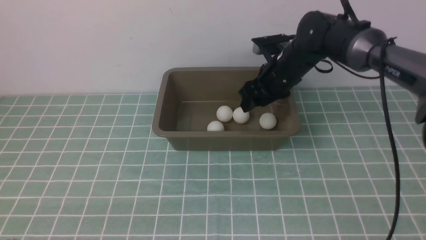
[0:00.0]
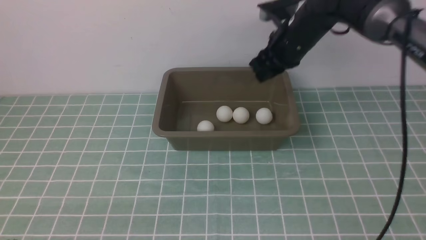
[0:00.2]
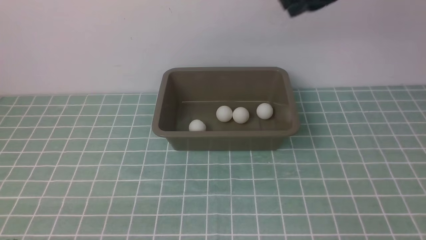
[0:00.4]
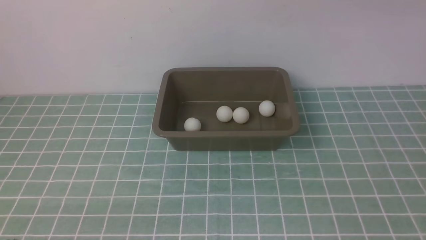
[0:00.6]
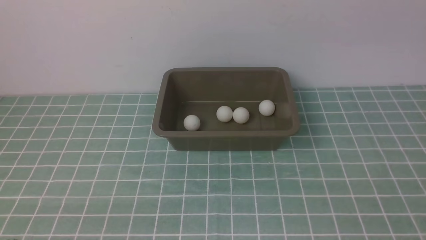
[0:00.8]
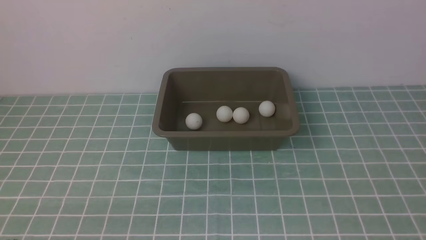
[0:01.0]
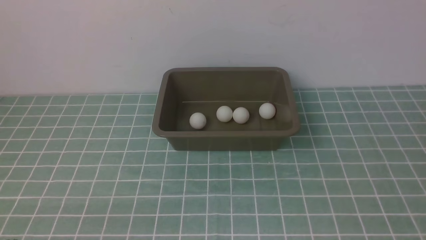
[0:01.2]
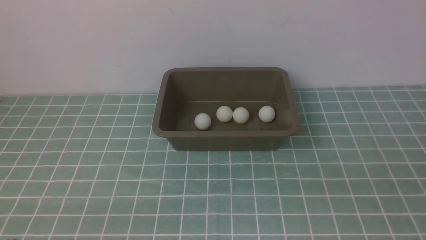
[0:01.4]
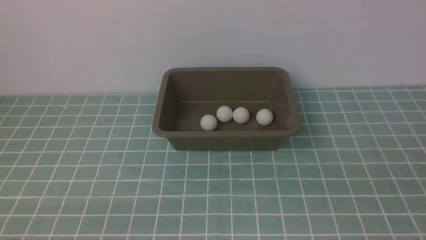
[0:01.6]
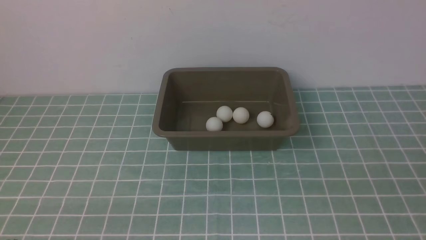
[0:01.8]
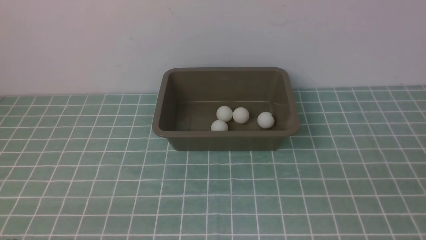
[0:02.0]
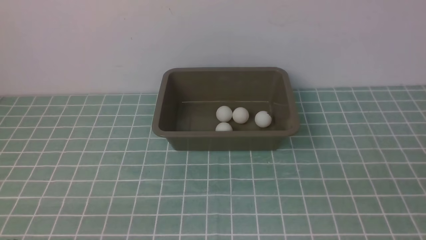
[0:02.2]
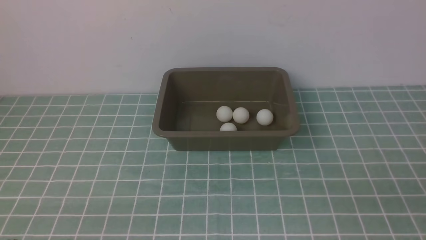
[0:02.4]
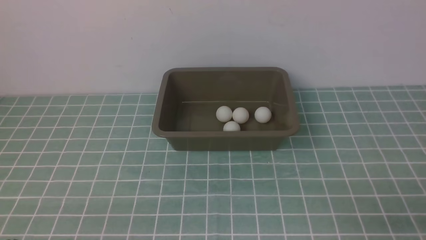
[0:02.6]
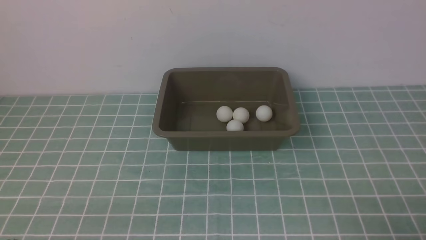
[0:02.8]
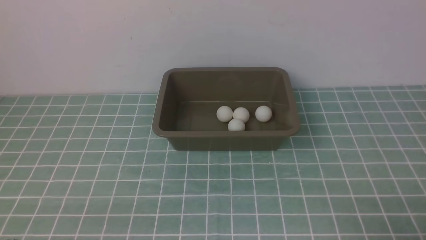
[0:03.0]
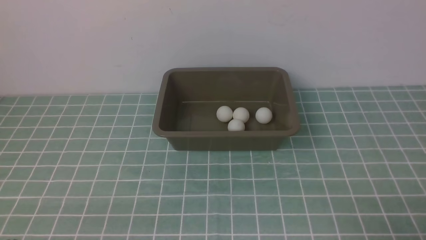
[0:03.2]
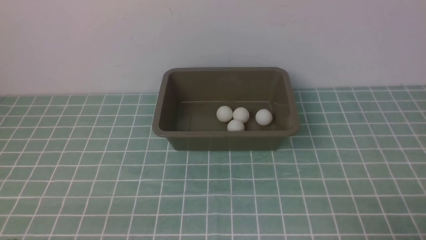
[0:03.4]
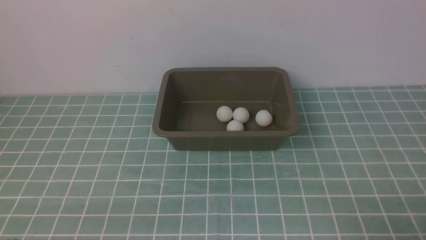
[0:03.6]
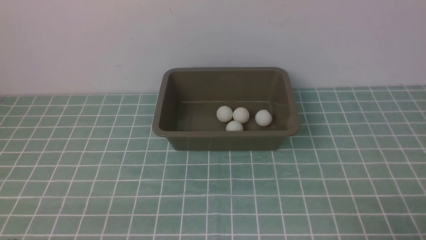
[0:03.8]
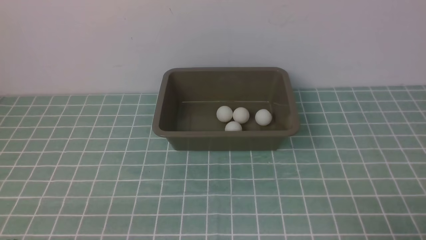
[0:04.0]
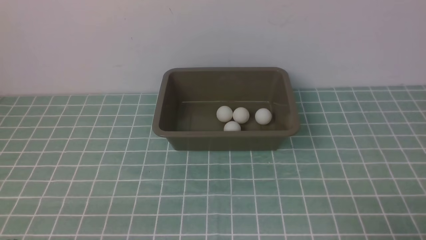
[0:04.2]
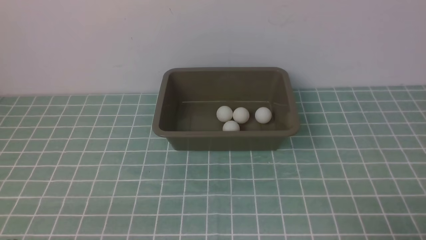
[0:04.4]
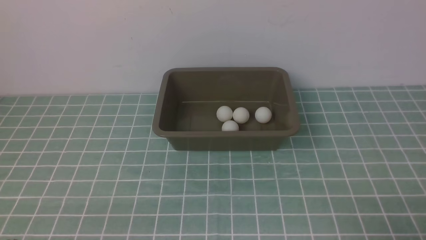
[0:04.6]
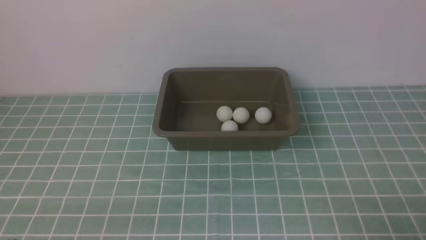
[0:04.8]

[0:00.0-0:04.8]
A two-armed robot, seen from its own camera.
0:00.0 to 0:01.6: The right gripper shifts approximately 40 cm backward and to the right, and closes.
0:03.2 to 0:04.8: Both grippers stay put.
